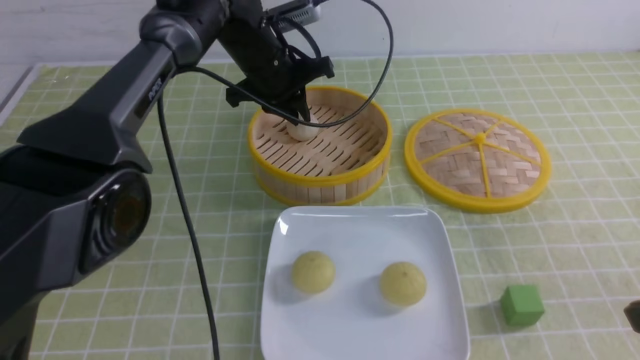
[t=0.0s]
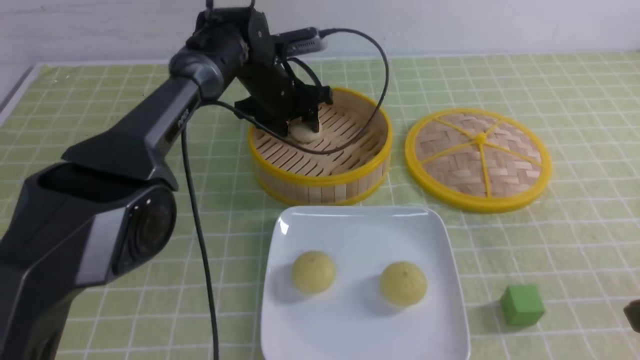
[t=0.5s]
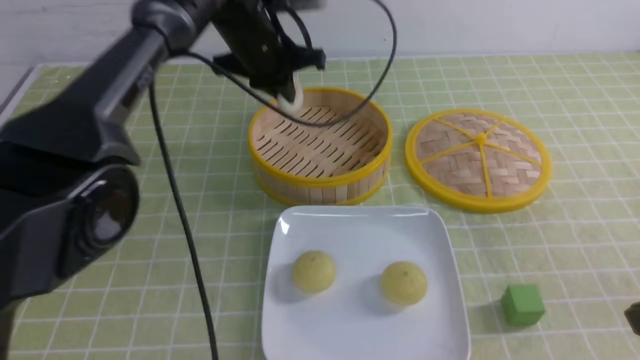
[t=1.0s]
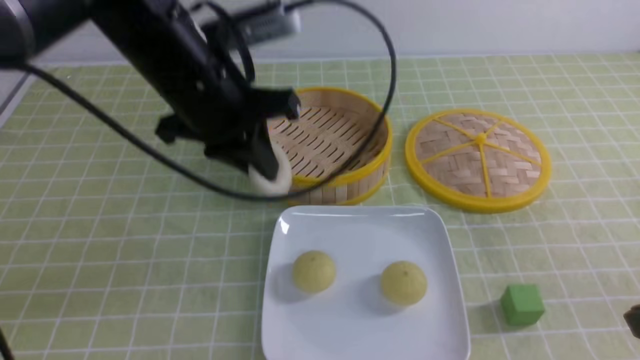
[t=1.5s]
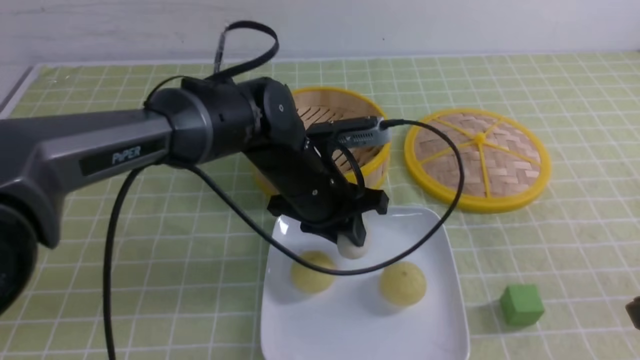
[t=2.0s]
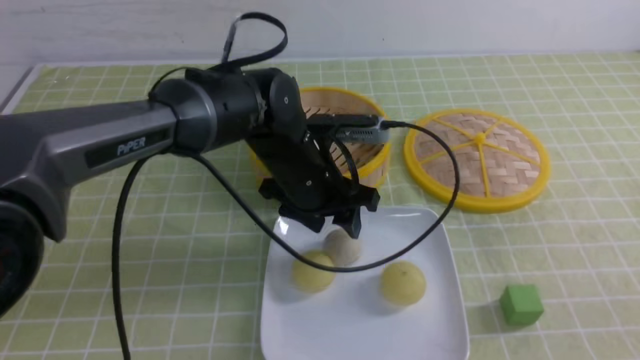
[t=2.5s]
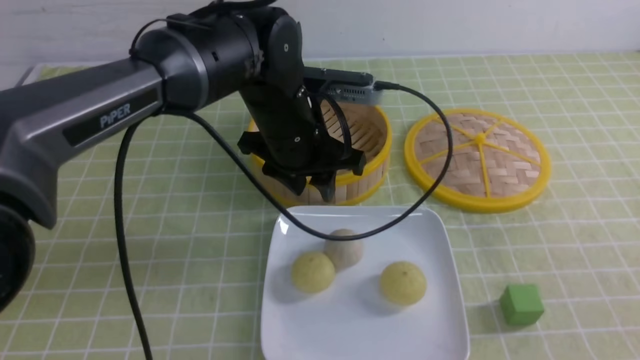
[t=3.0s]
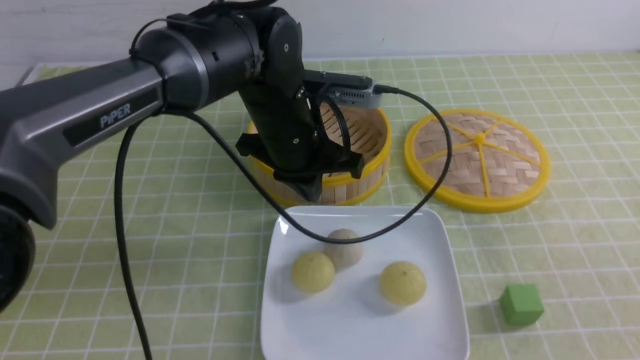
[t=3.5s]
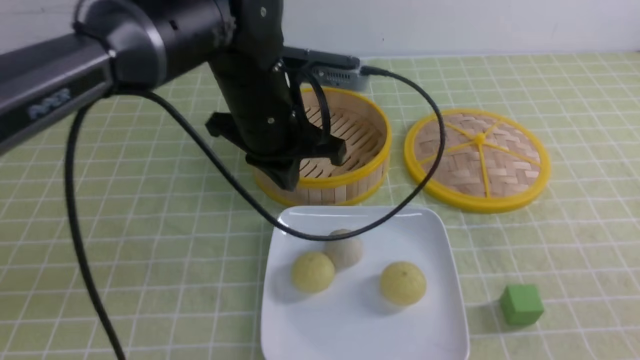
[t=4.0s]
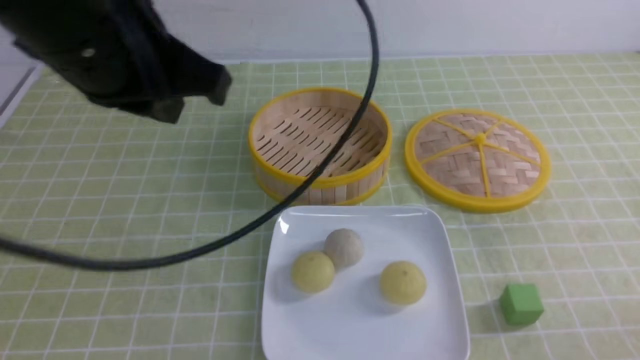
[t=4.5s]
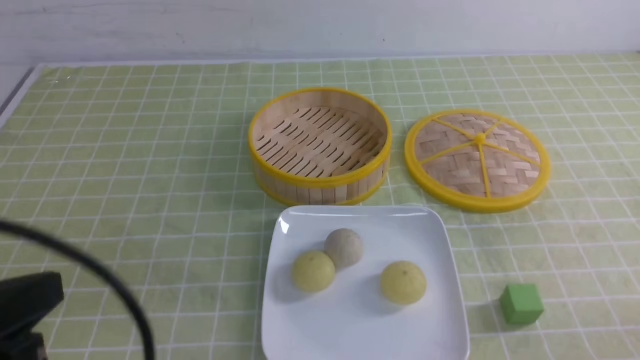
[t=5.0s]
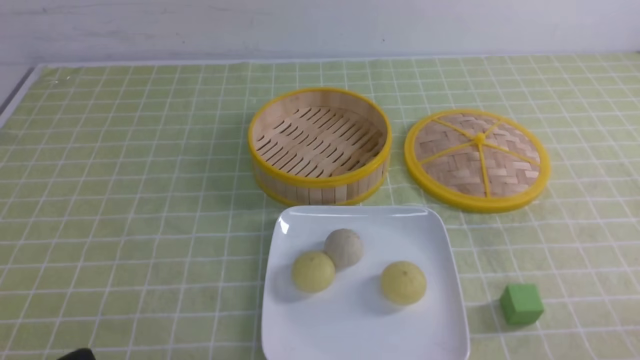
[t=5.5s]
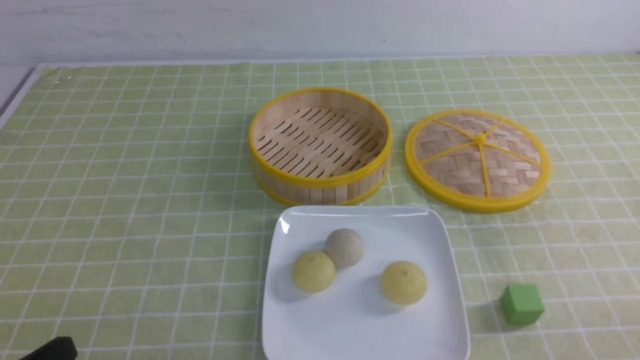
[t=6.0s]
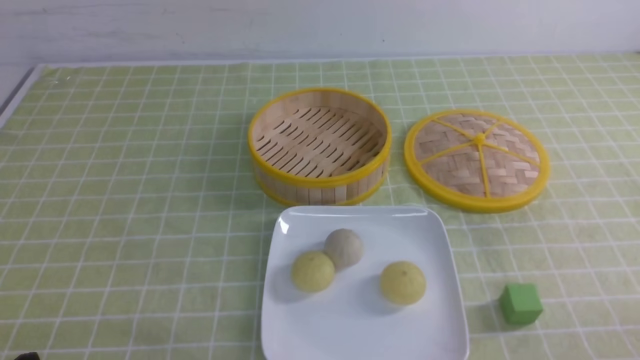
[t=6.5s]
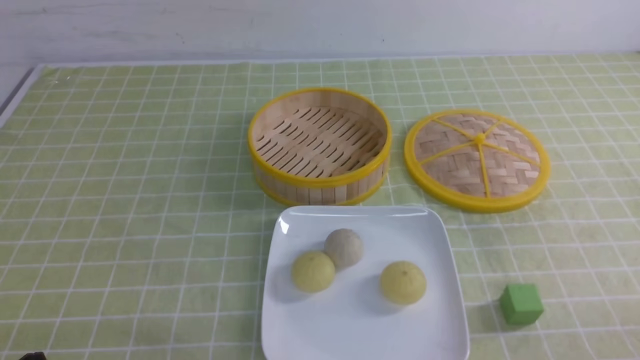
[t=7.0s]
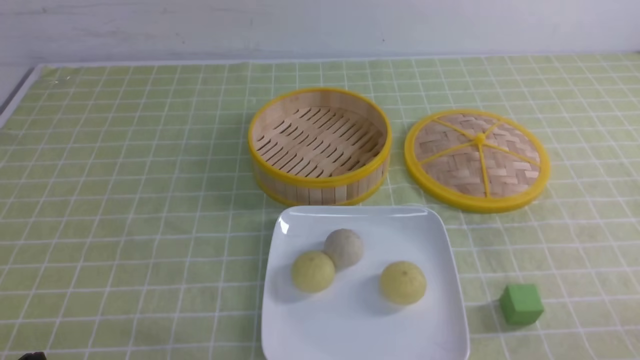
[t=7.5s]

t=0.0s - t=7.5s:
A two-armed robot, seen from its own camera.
Step, t=1.0s - t=2.5s: use the left arm to put the steamed stuffed bun into the plate.
t=0.0s - t=2.0s: The left gripper moves backward, roughly 15 cm, and closes and opens again.
t=2.0s - t=4.0s: The left gripper goes approximately 10 cm upward, and closes its fingers, while the right gripper shifts roughly 5 cm backward.
t=4.0s - t=5.5s: The right gripper moves downward, roughly 10 cm; the left gripper goes roughly 35 cm backward and to the left.
